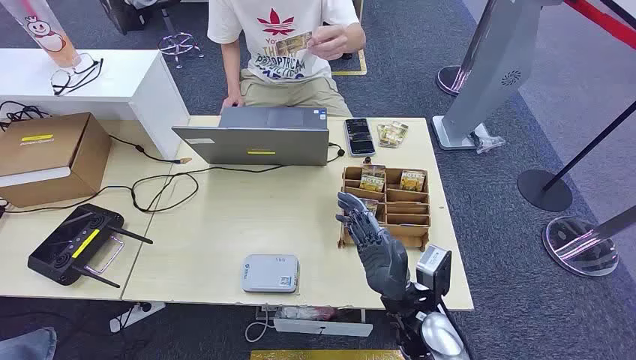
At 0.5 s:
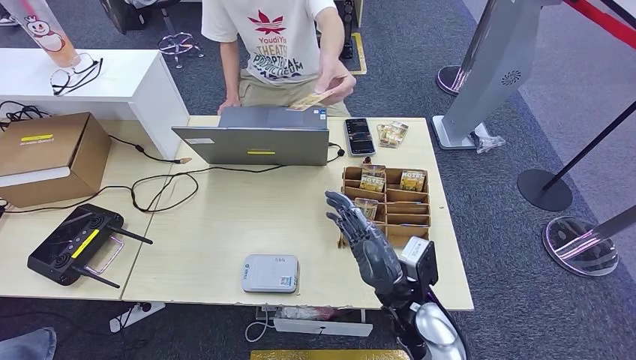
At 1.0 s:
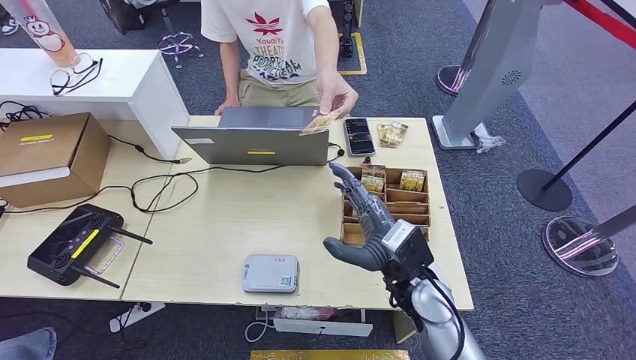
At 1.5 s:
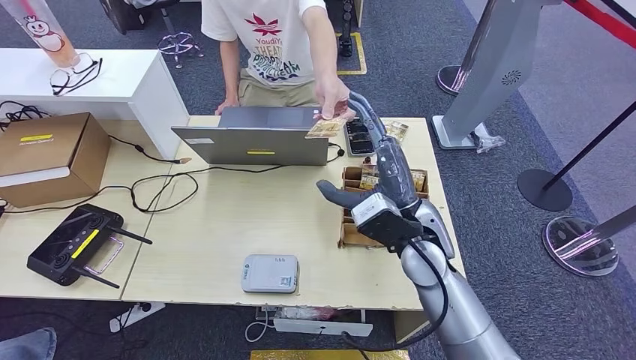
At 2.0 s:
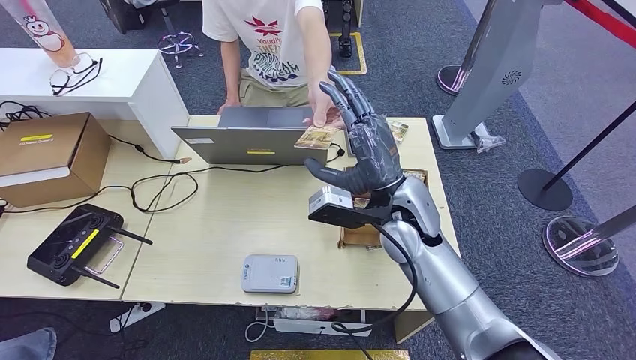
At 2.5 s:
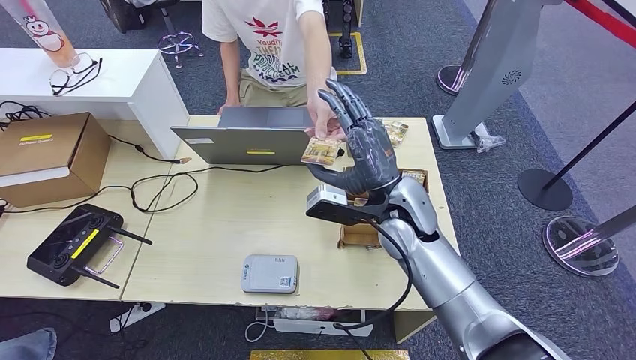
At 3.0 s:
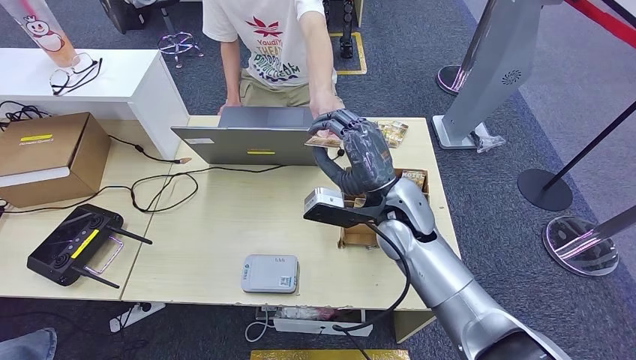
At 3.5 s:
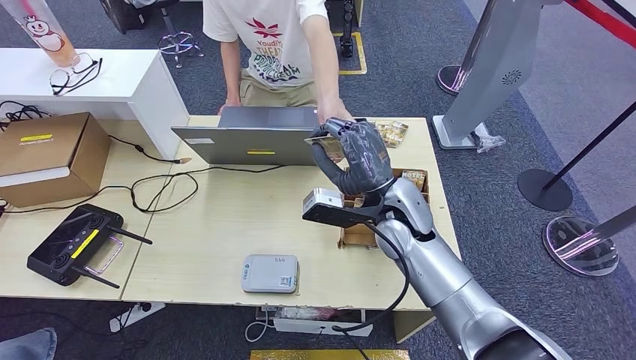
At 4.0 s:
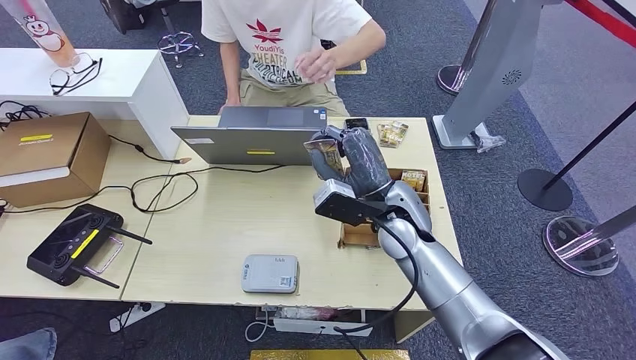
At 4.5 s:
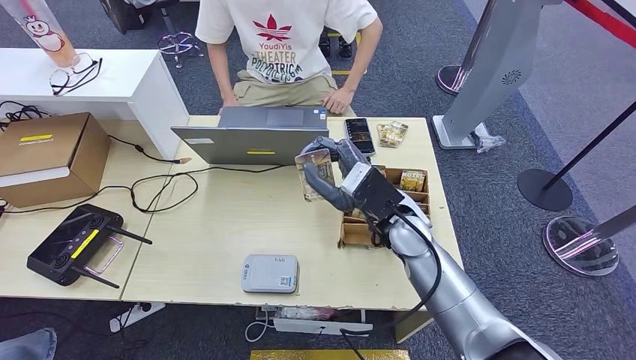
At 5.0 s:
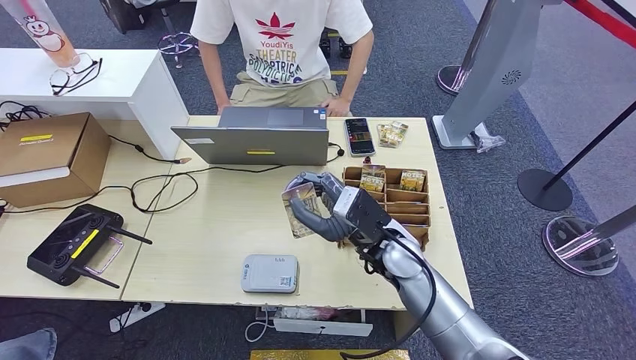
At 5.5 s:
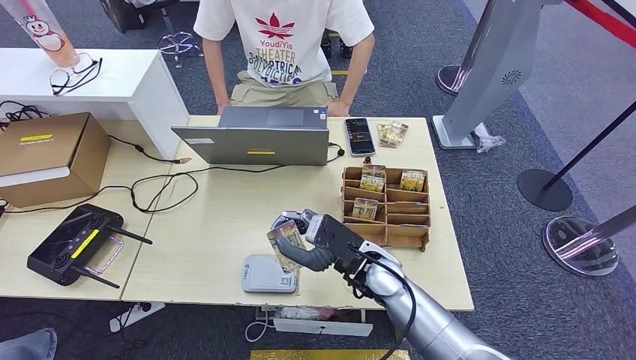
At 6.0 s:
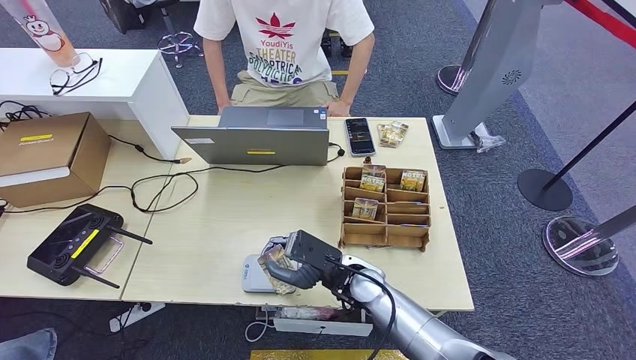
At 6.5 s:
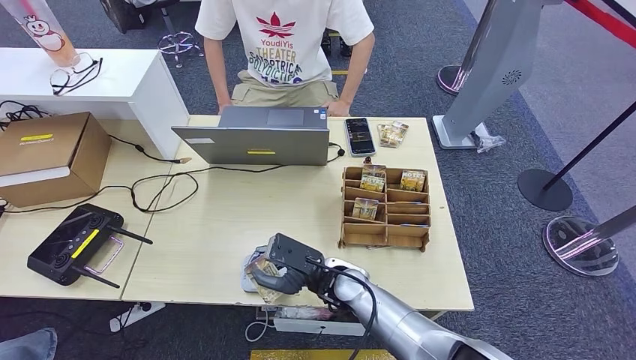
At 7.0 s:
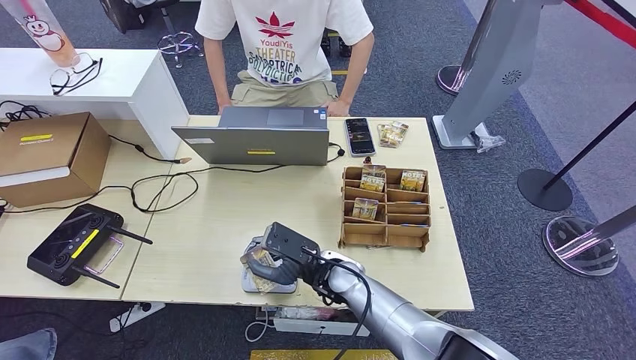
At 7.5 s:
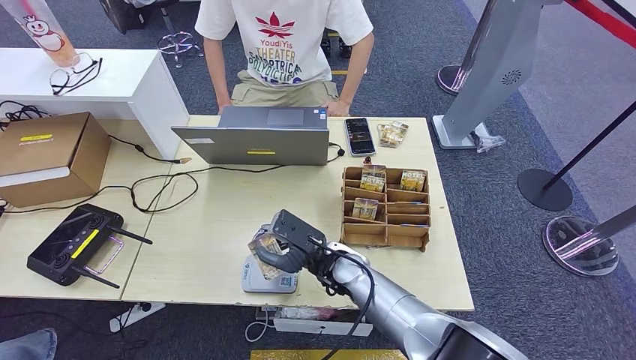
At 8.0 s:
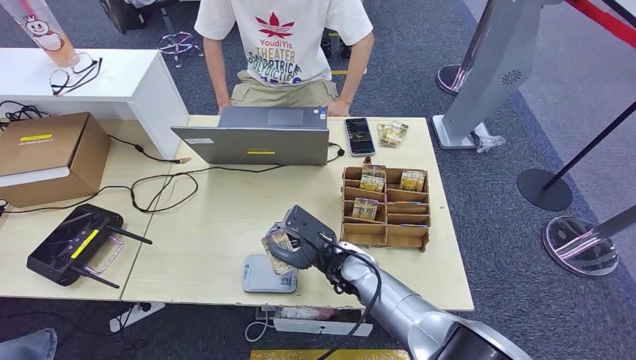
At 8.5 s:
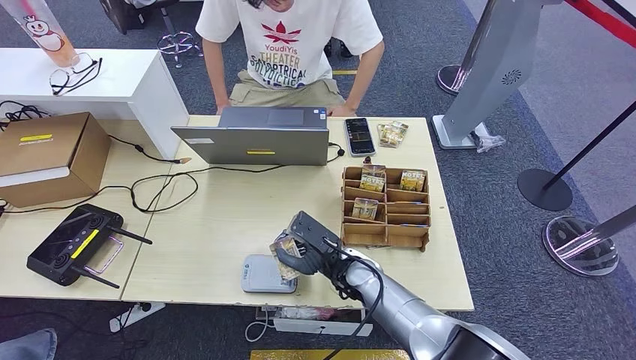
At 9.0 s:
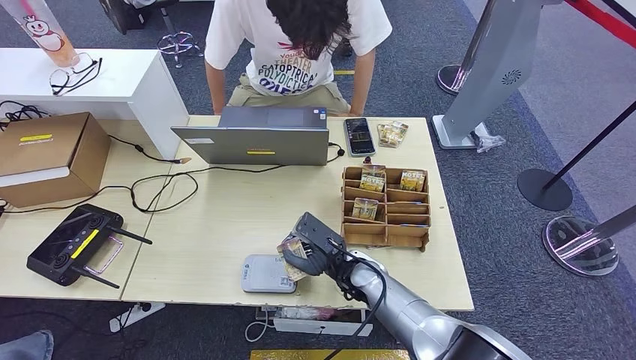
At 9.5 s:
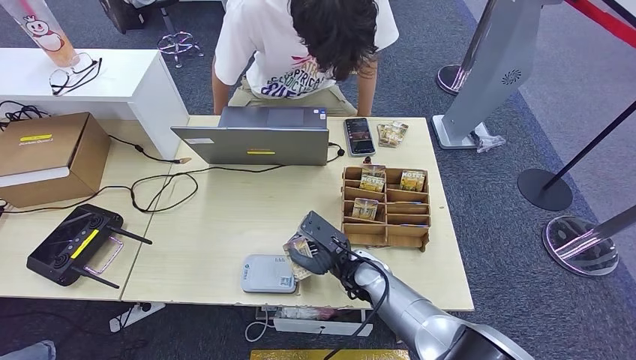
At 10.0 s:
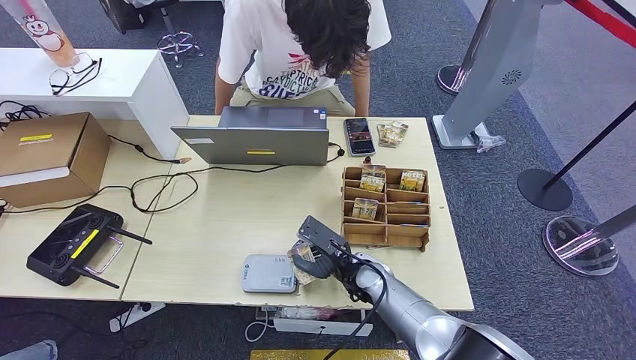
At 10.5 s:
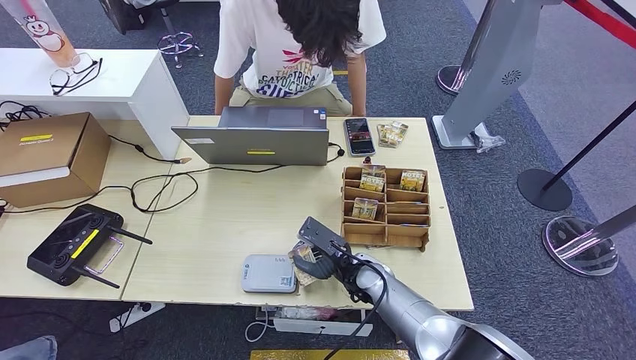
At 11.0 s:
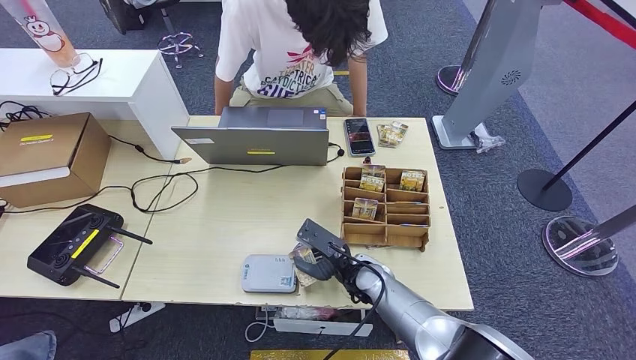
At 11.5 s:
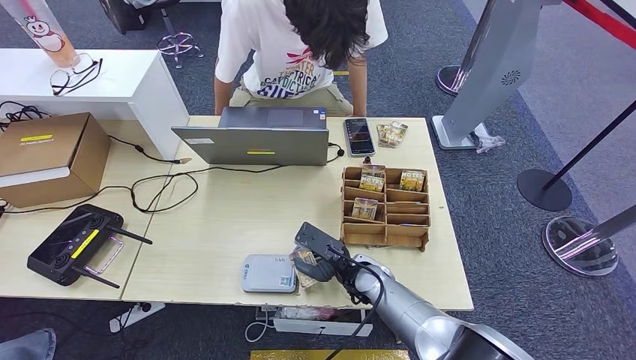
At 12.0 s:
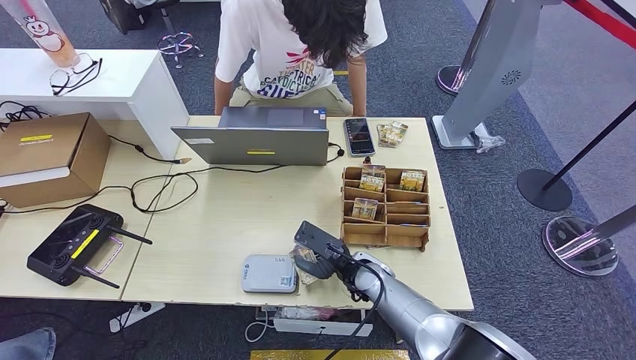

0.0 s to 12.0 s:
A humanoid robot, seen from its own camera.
Step, 0.0 to 3.0 s: Take the ID card from the person's hand.
2.0 to 4.0 s: The hands make only small movements.
4.0 to 6.0 s: The right hand is displaced downward, backward and to the left by approximately 15 cm.
6.0 to 8.0 s: There are only small adjustments of the hands.
8.0 to 12.0 s: The hands stay close to where they were, moving slightly.

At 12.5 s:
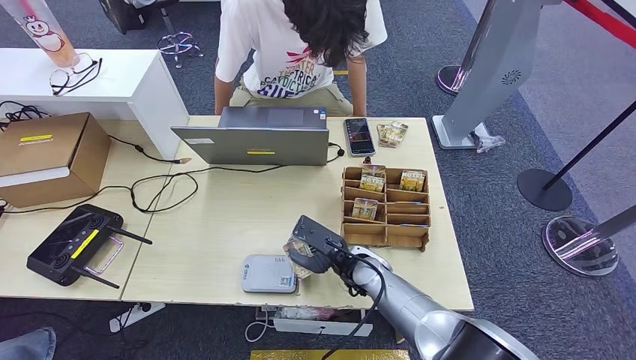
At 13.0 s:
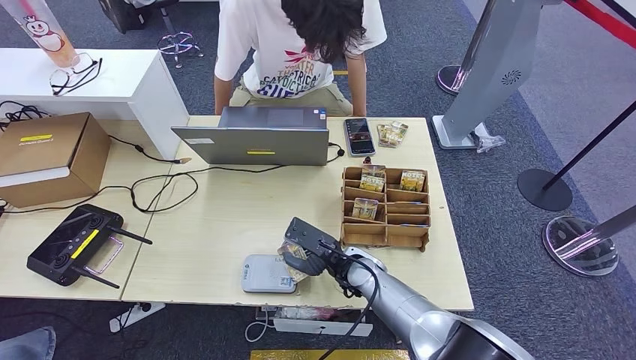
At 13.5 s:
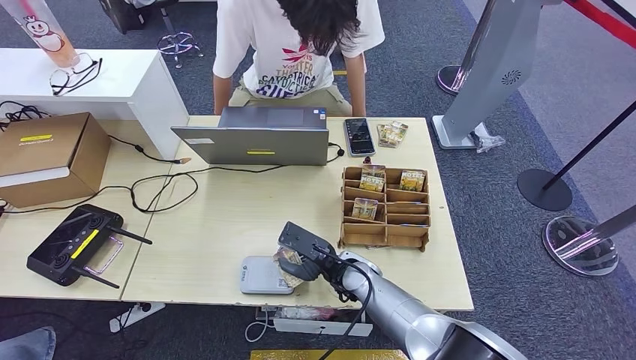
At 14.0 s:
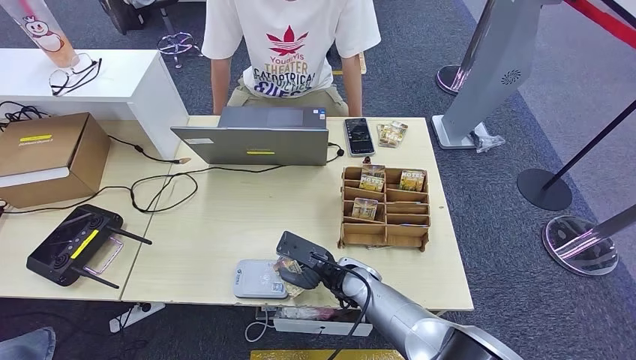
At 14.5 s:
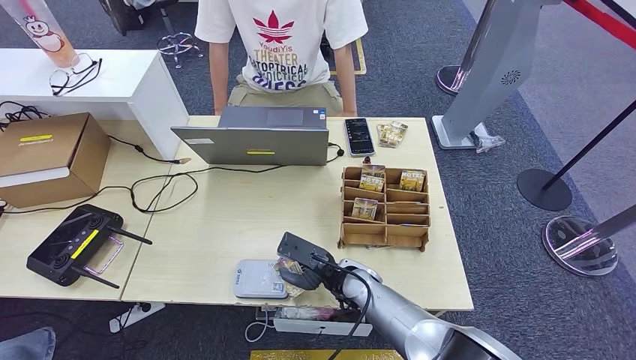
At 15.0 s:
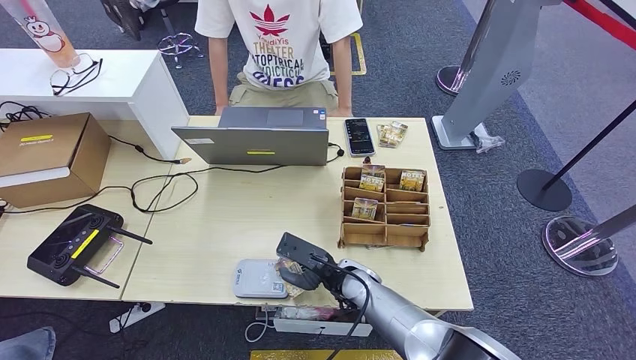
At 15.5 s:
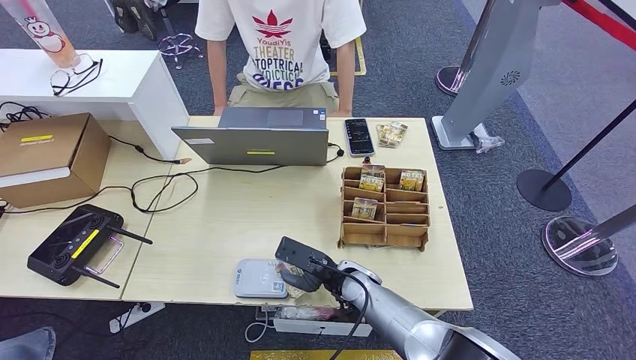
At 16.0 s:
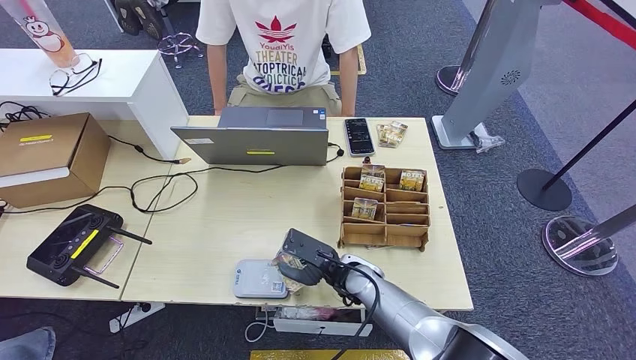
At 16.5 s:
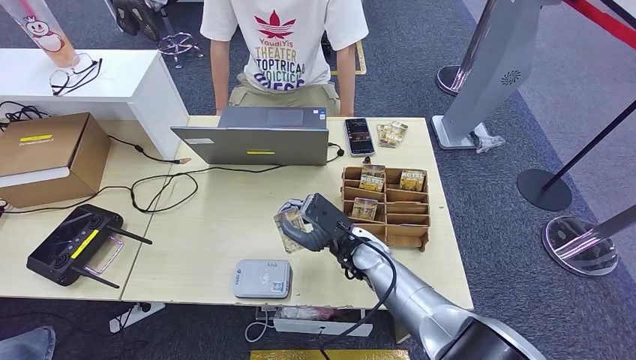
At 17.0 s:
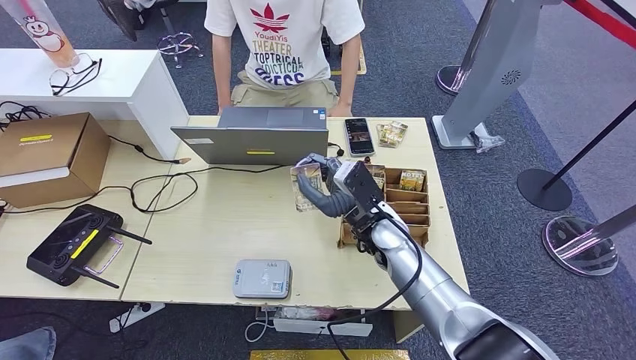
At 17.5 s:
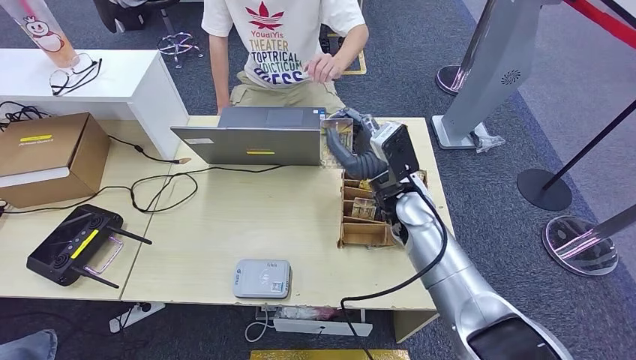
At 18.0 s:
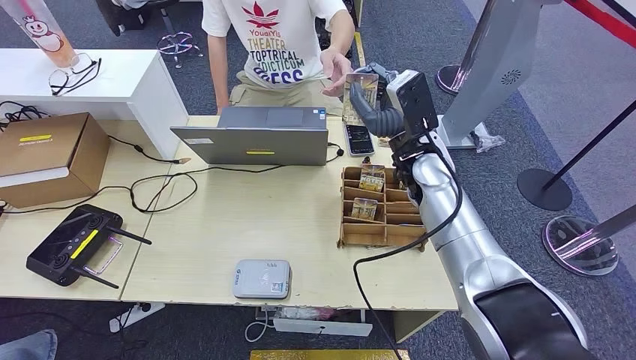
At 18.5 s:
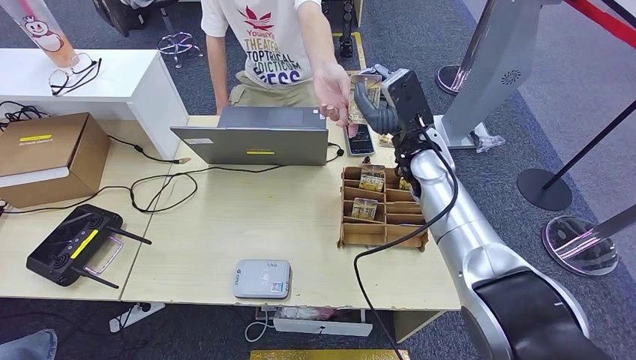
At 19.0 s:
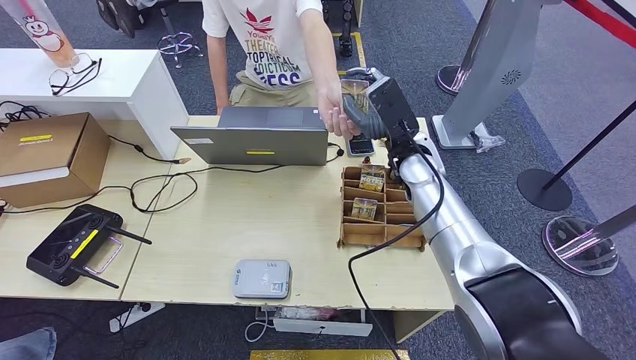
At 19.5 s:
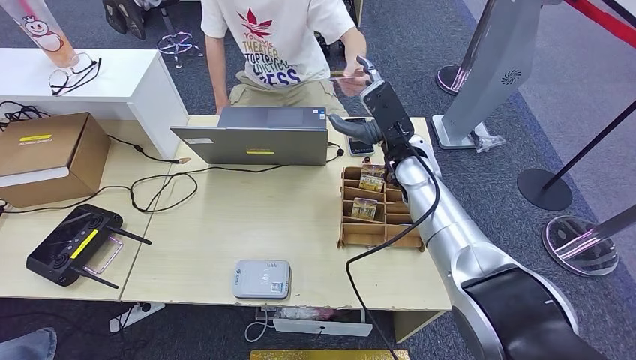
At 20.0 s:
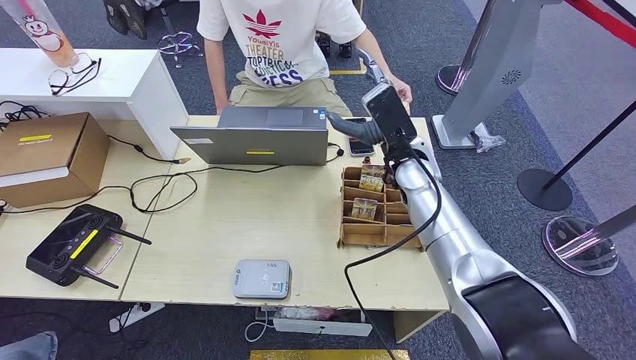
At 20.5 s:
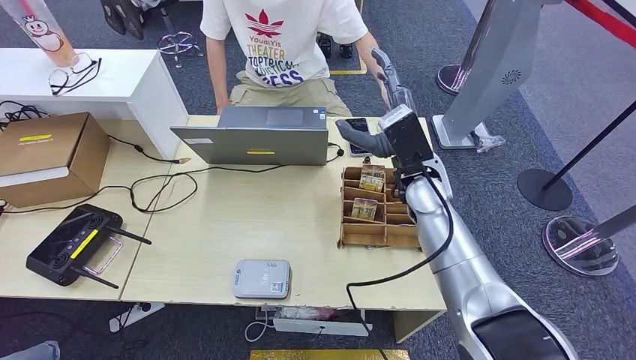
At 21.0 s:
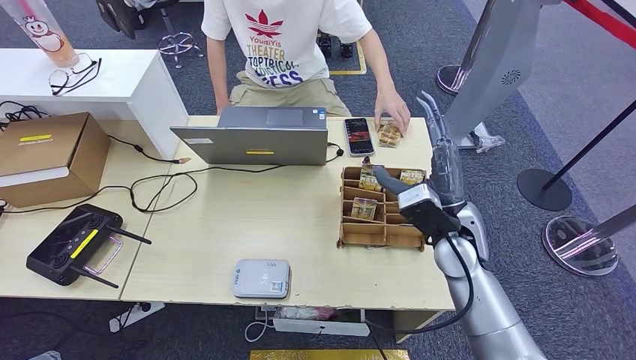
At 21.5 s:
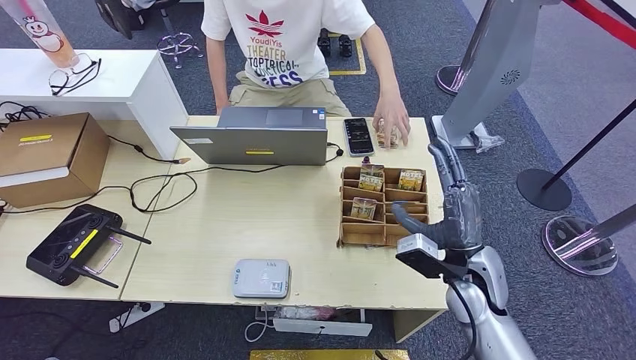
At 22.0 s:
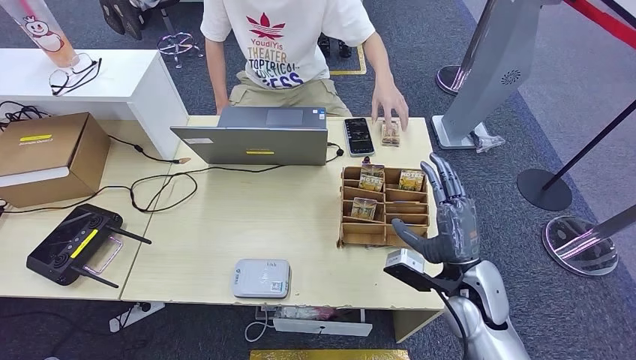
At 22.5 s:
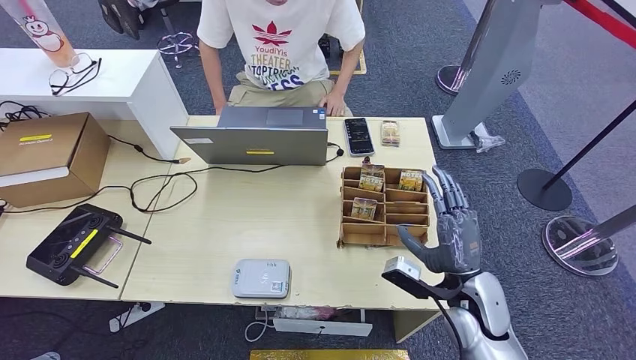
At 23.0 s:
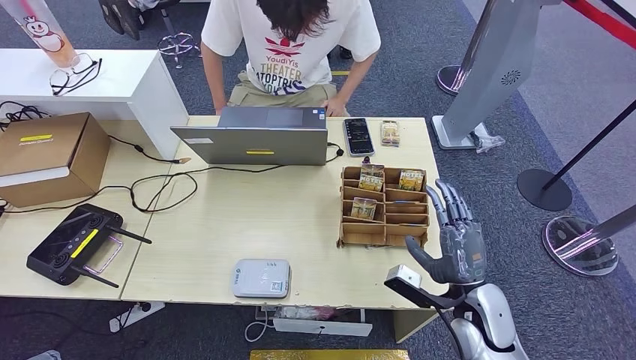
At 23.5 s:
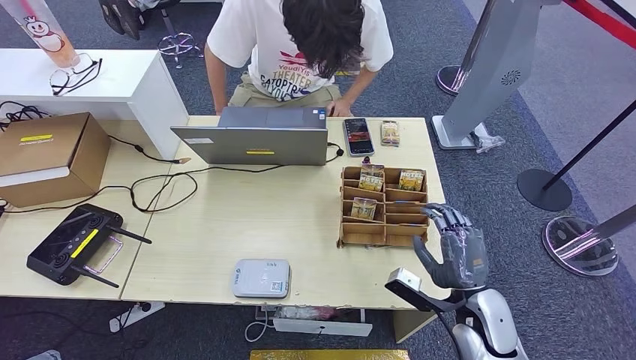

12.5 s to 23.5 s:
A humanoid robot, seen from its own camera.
Step, 12.5 to 14.5 s: Place the ID card on the card reader.
Step, 15.0 to 20.0 s: Hand the ID card to the person.
12.5 to 16.0 s: The hands move only a little.
16.0 to 18.0 s: The right hand travels upward and forward by roughly 25 cm.
18.0 to 20.0 s: The hands make only small movements.
20.0 to 21.5 s: The right hand heads backward, downward and to the right, covering roughly 20 cm.
21.5 to 23.5 s: The right hand moves downward and backward, about 10 cm.
